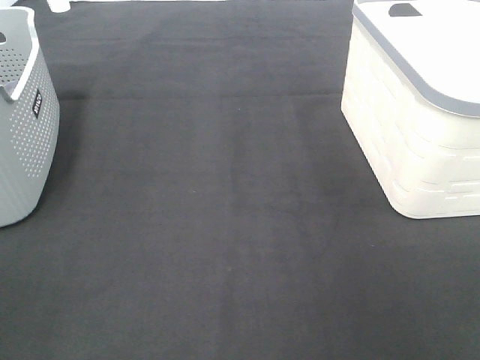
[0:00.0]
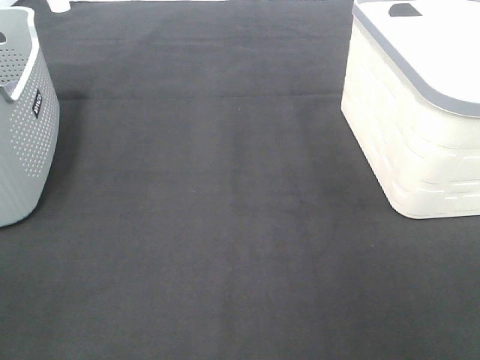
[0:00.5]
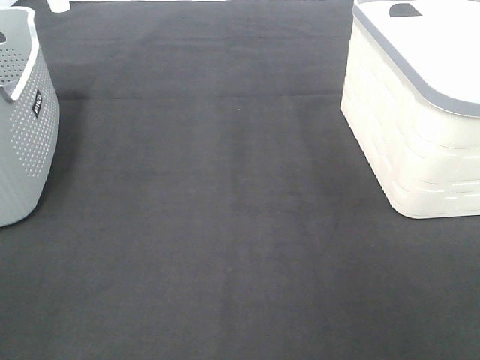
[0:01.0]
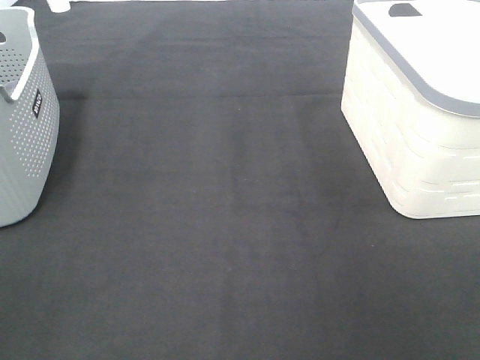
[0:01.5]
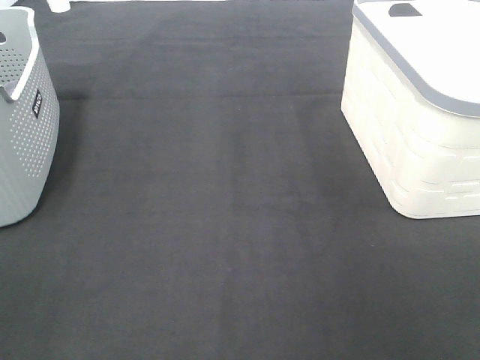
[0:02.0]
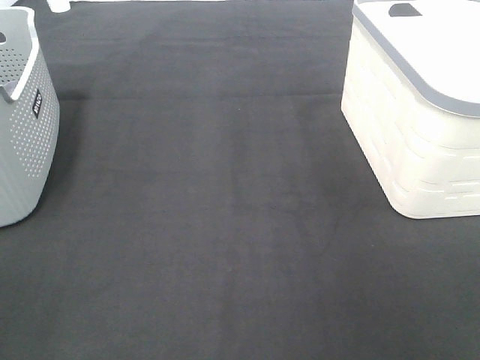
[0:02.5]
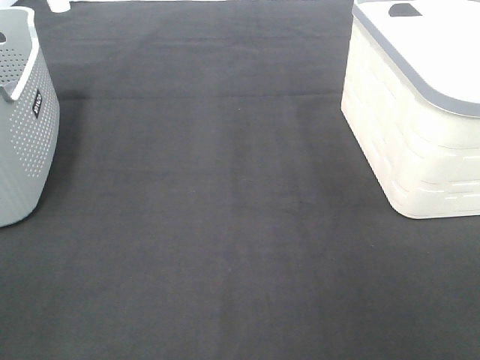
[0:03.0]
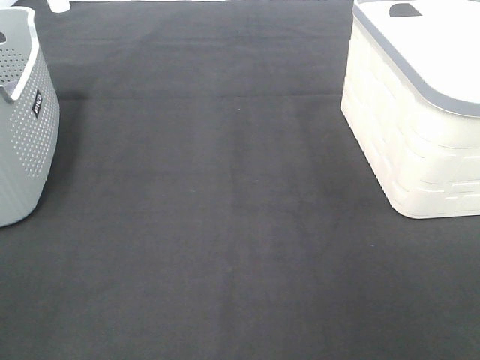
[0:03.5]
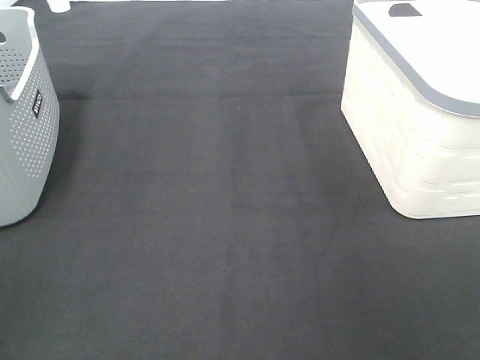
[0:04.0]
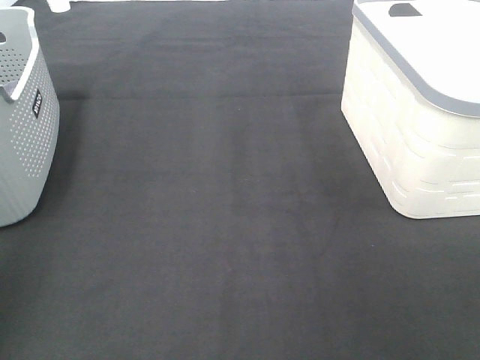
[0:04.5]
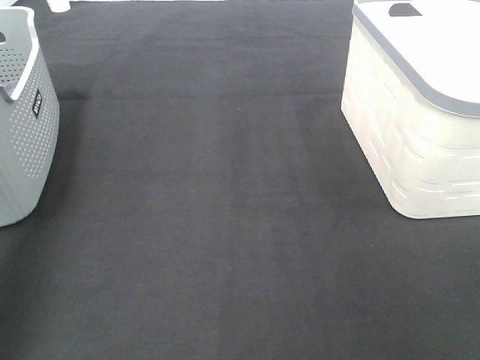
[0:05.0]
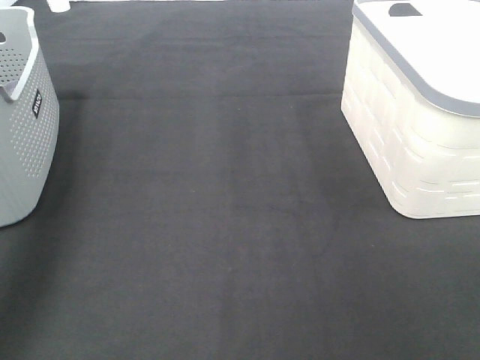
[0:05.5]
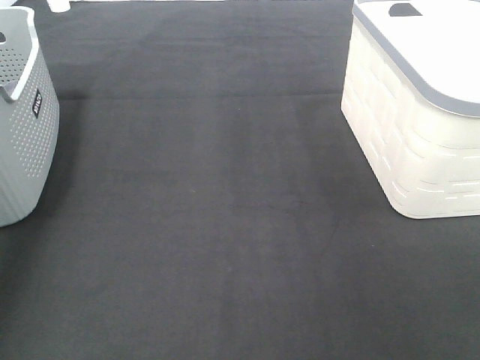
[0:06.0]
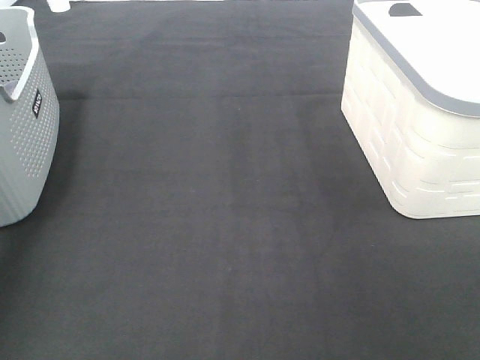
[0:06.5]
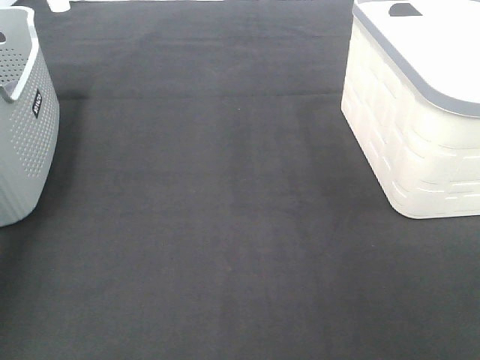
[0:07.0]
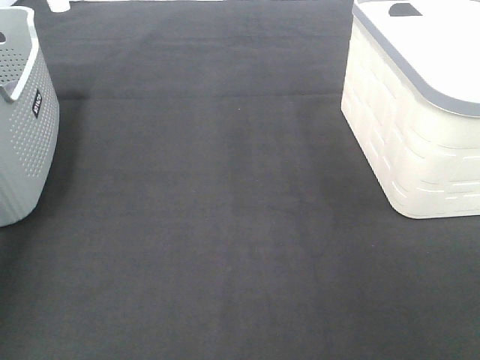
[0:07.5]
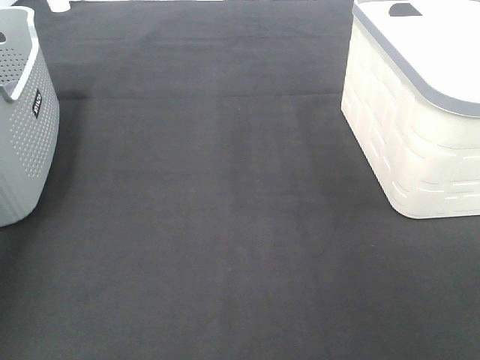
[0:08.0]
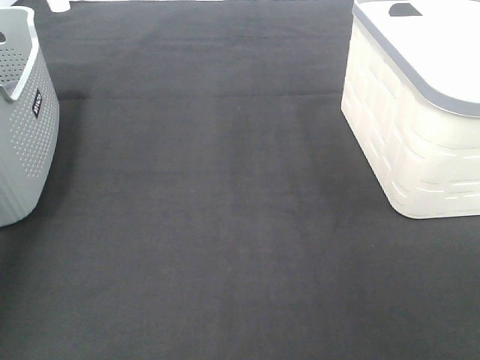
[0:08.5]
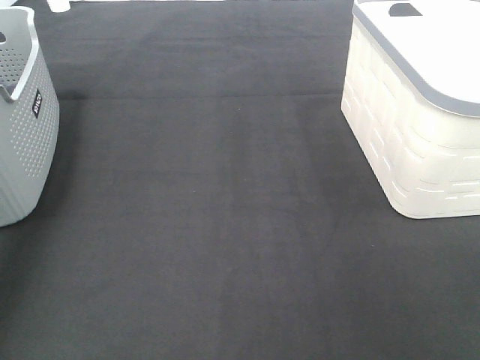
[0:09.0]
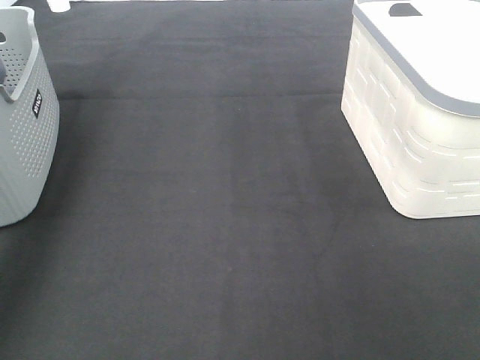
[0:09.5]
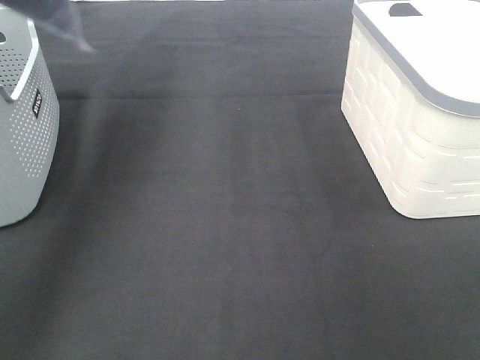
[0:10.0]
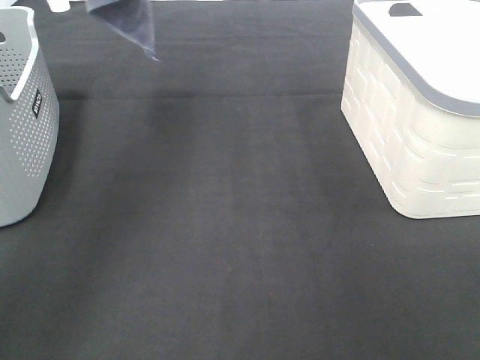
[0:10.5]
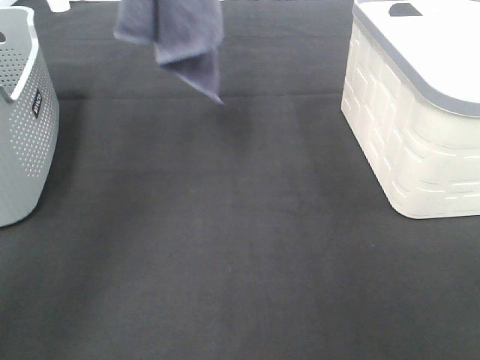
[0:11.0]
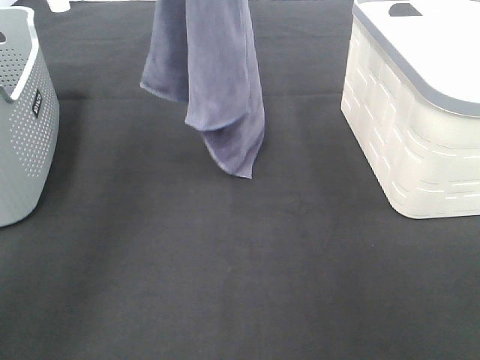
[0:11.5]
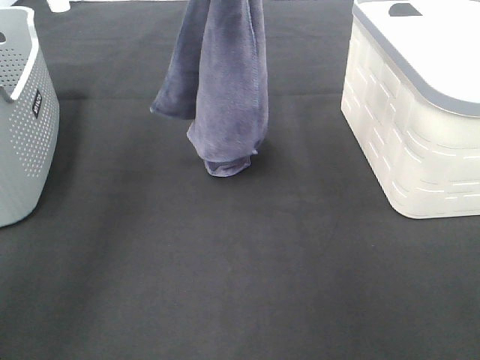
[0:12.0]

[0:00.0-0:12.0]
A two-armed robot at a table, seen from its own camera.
Task of the whole recording: Remove the towel and place it.
0:00.0 to 0:02.0: Neither gripper changes place.
0:04.0 to 0:06.0: The left gripper shifts approximately 35 cm forward.
0:08.0 to 0:10.0: The left gripper shifts some 35 cm upward.
0:10.0 to 0:12.0: The left gripper shifts roughly 20 cm downward and to the right; the right gripper shifts by approximately 5 cm.

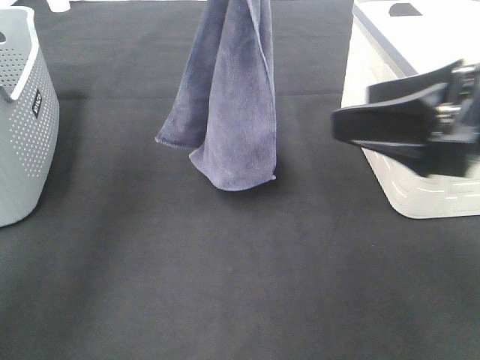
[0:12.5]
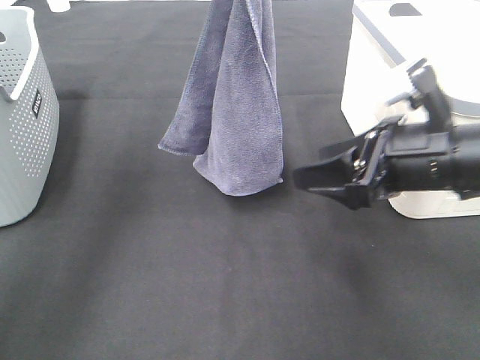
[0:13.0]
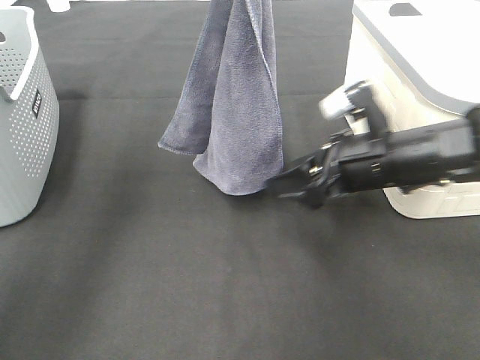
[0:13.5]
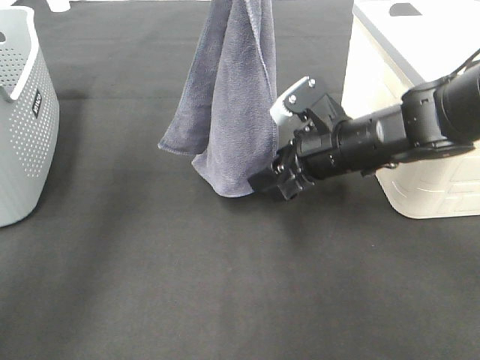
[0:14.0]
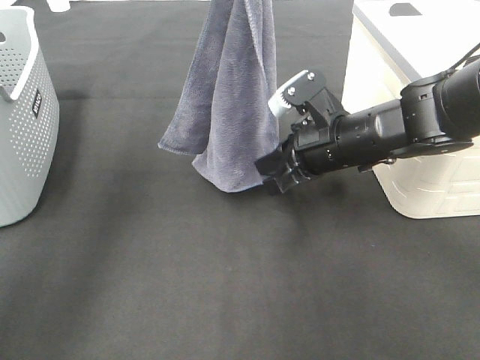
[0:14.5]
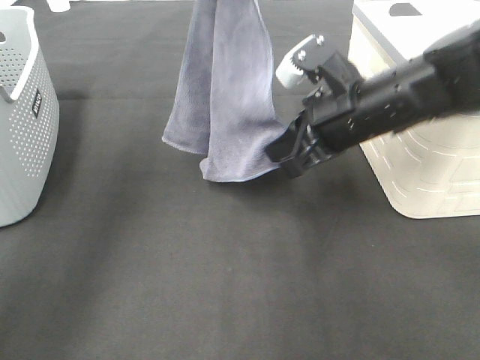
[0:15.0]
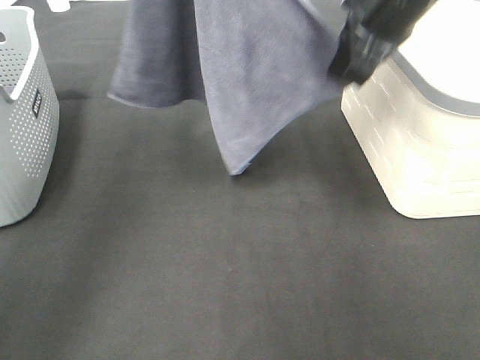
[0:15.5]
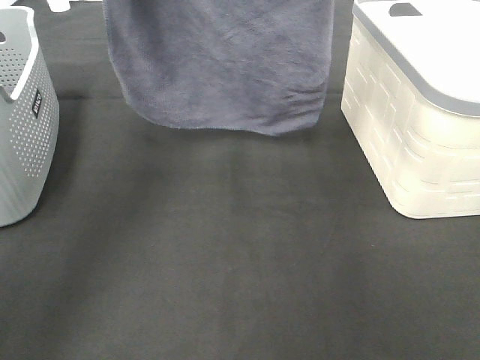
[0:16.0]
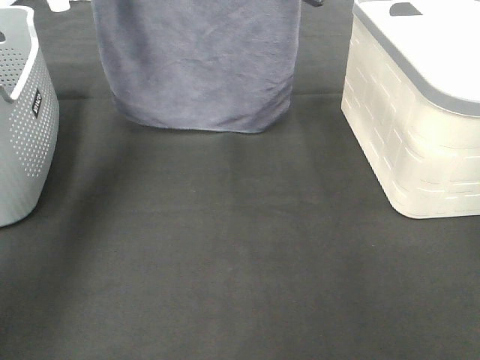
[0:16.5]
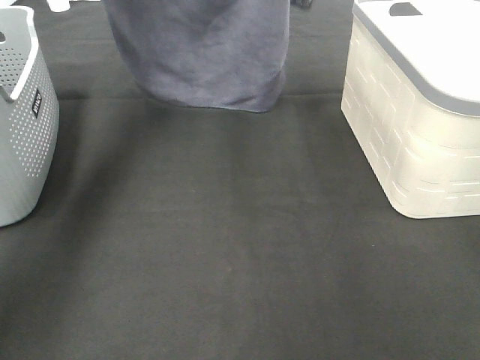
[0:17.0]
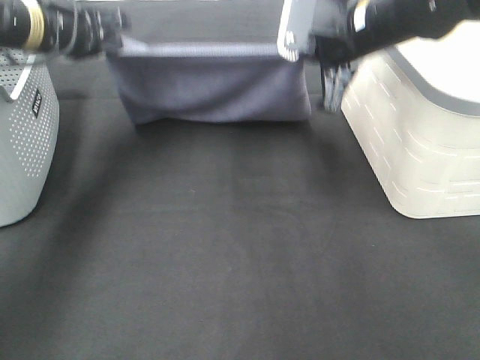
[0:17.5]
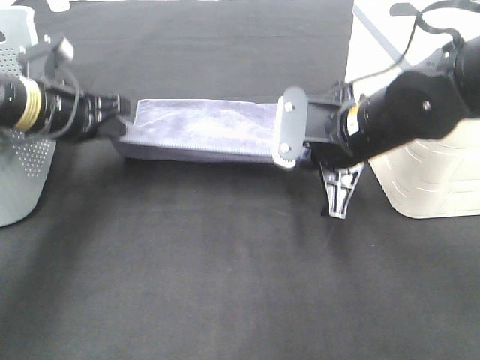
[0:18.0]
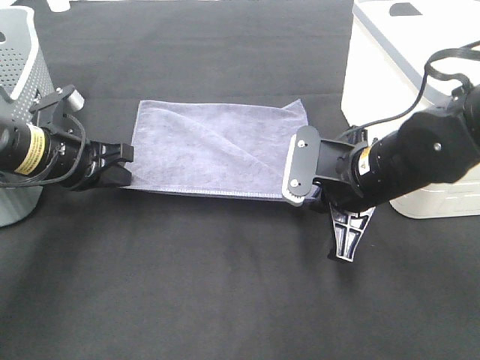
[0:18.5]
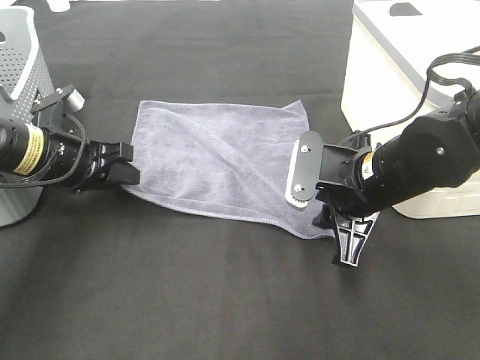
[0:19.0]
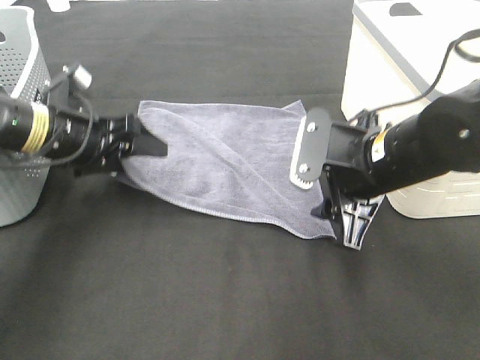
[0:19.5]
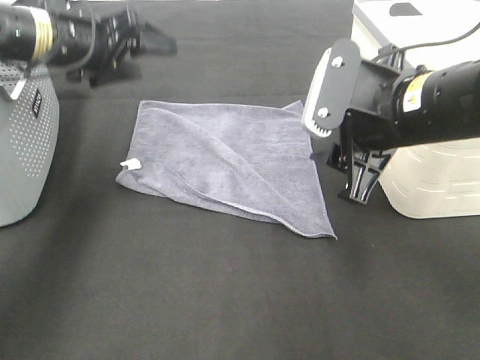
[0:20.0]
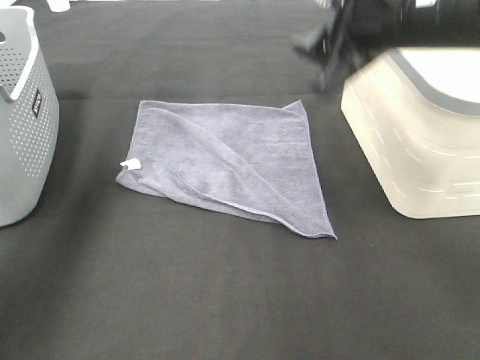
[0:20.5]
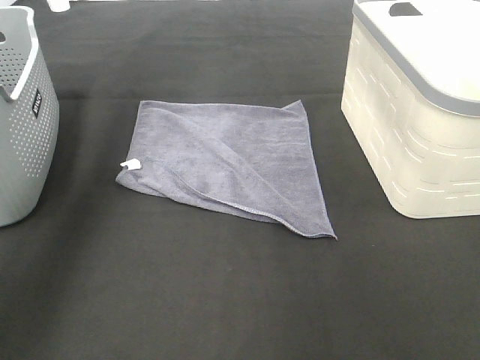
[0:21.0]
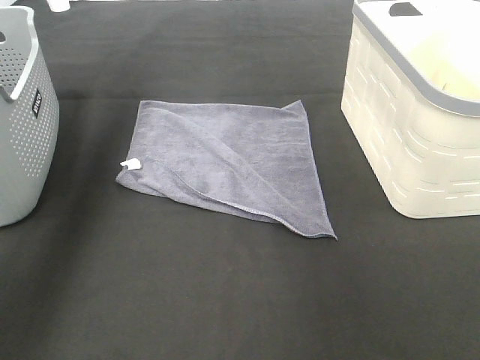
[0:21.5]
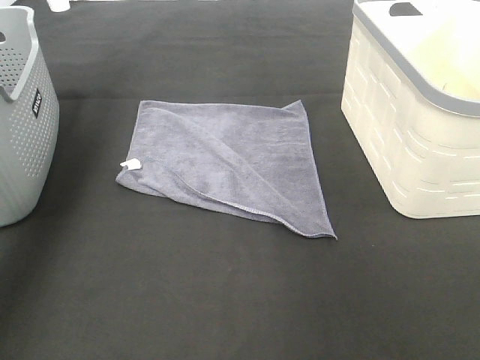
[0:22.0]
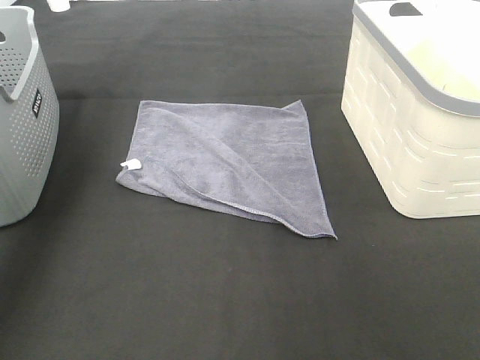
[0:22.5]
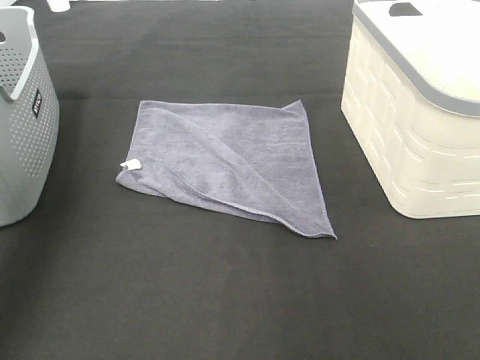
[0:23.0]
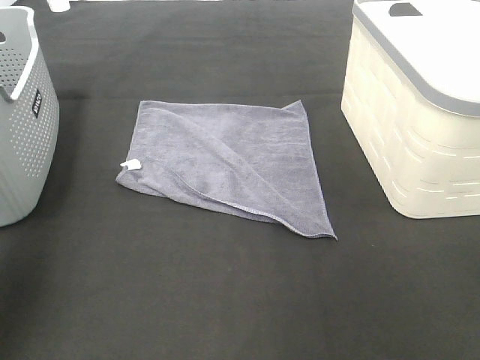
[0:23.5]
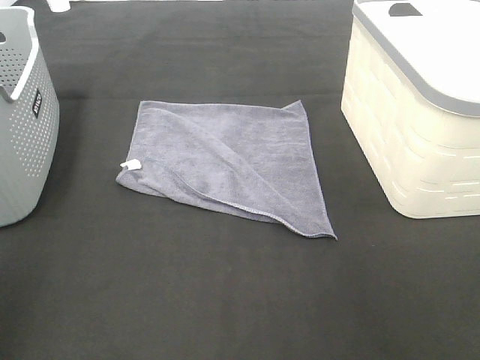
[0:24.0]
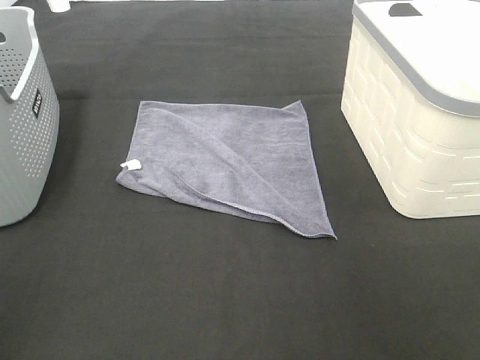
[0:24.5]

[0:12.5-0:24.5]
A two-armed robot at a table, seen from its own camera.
Task of the whole recording: Remove the towel and place it.
Step, 0:12.5 to 0:15.0: Right hand: spread the grey towel flat on the table.
Step, 0:12.5 to 0:15.5: Left hand: spread the grey towel flat on the table.
0:12.5 to 0:14.5: The right gripper goes about 20 cm forward, downward and to the left, and closes its fingers.
0:14.5 to 0:16.5: The left gripper shifts about 15 cm to the left and forward, while the right gripper travels upward and forward by roughly 25 cm.
0:16.5 to 0:18.5: Both grippers travel together downward and backward, roughly 25 cm.
0:18.5 to 0:20.5: The right gripper moves upward, about 20 cm, and opens its fingers, while the left gripper moves upward and forward, about 25 cm, and opens.
0:20.5 to 0:22.5: The right gripper is displaced upward, to the right and forward by approximately 15 cm; the left gripper travels to the left, upward and backward by roughly 20 cm.
0:22.5 to 0:24.5: The left gripper shifts some 35 cm backward and downward.

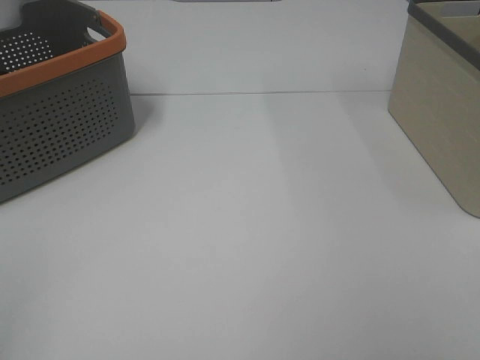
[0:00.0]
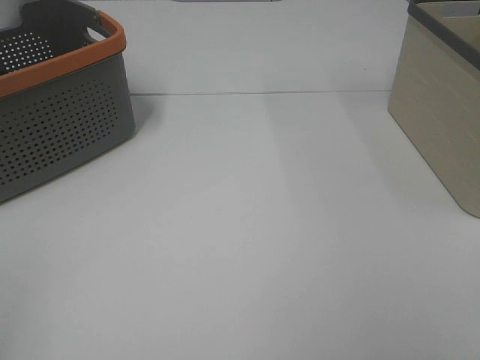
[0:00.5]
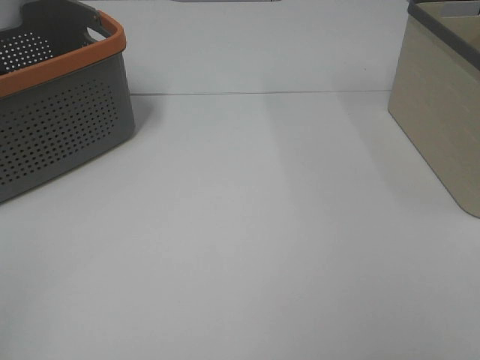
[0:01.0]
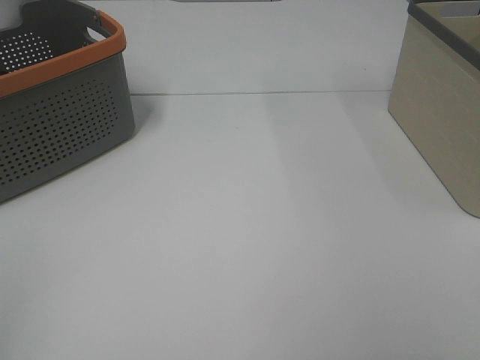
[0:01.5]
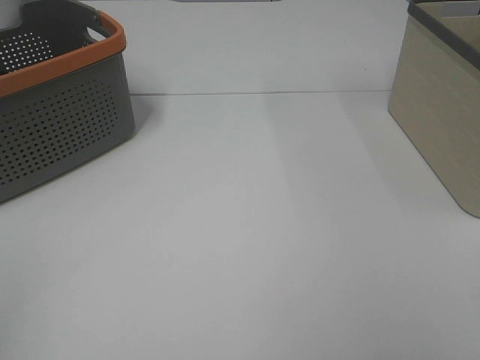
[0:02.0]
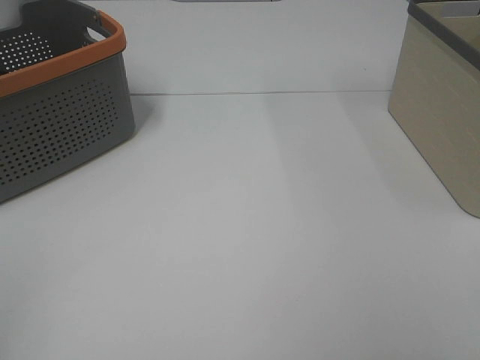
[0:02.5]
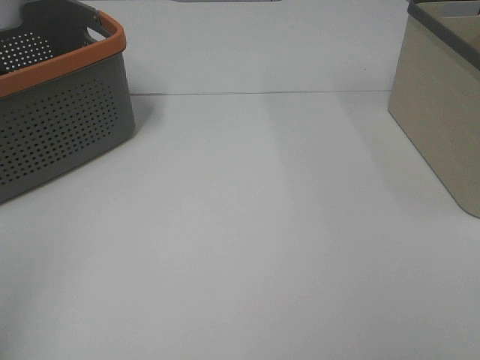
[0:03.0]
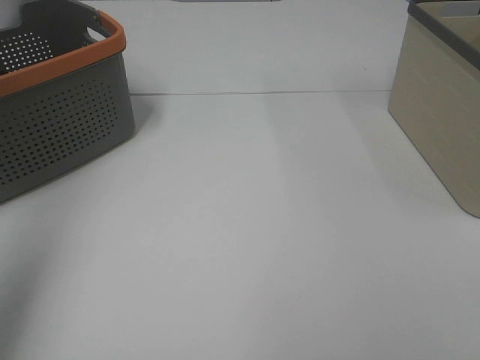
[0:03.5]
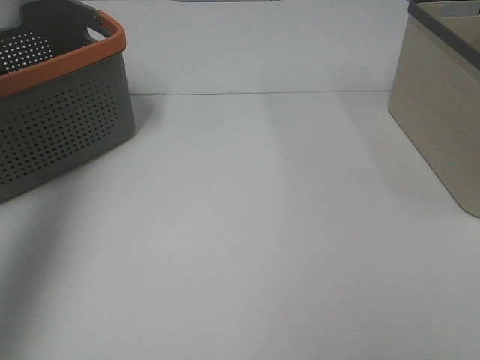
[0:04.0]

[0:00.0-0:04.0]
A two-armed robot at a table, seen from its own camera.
Task of the whole recording: Remove the towel and place it.
0:00.0 to 0:02.0: Both grippers stay about where they are.
0:02.0 to 0:04.0: The left gripper is displaced forward and upward by approximately 30 cm.
